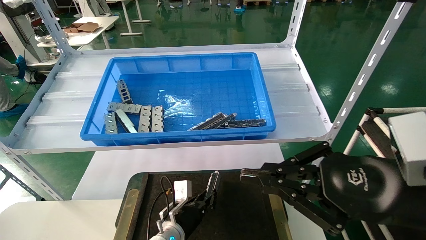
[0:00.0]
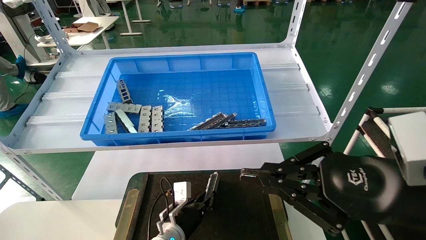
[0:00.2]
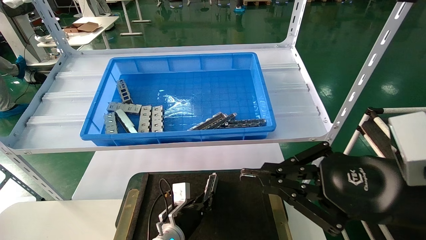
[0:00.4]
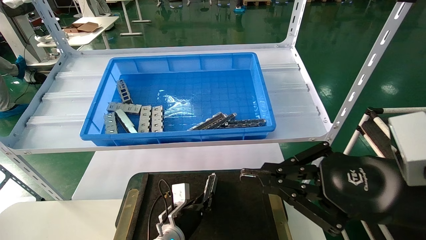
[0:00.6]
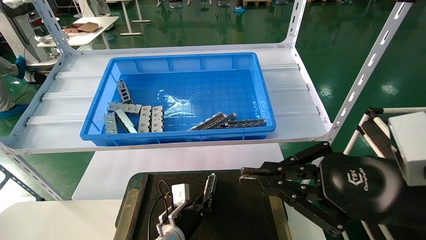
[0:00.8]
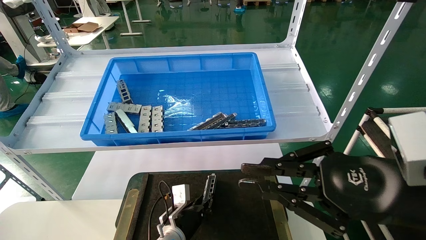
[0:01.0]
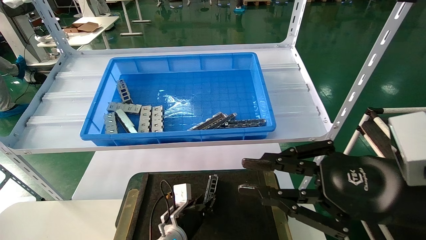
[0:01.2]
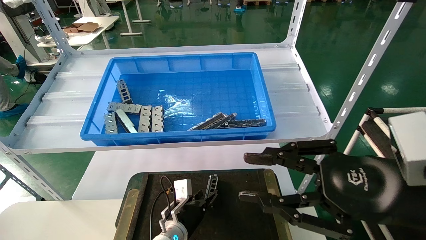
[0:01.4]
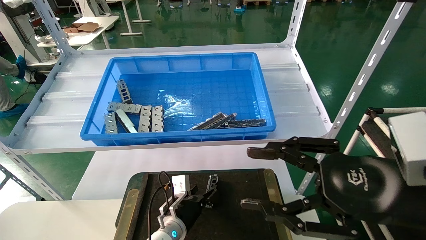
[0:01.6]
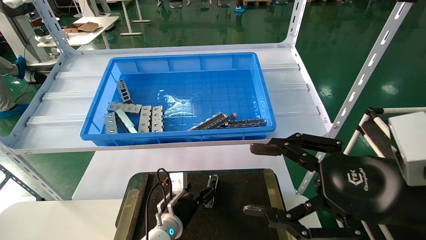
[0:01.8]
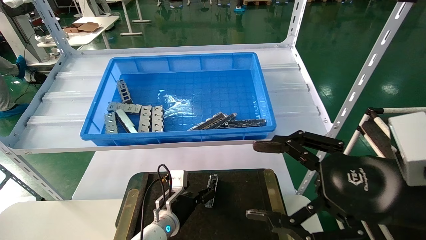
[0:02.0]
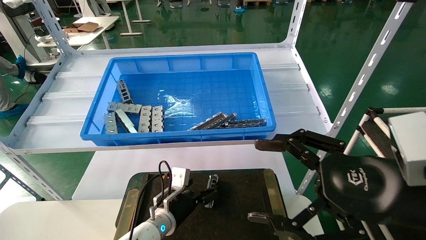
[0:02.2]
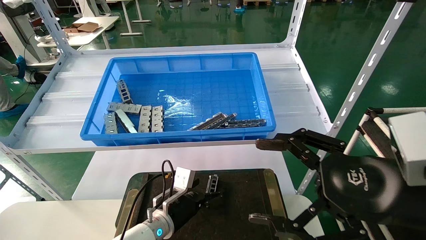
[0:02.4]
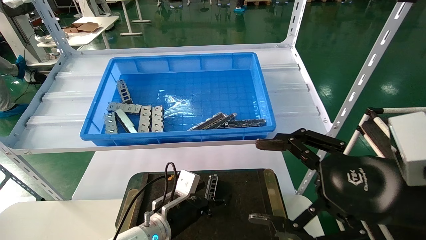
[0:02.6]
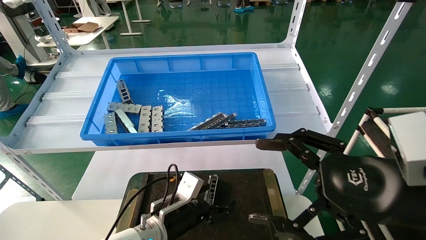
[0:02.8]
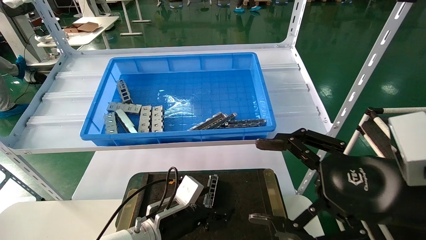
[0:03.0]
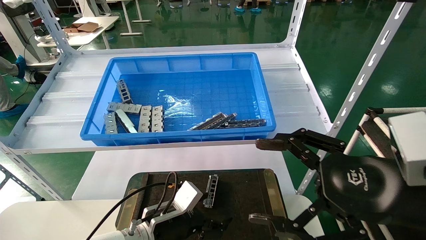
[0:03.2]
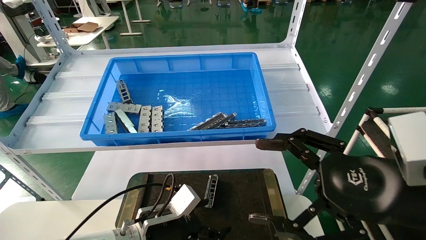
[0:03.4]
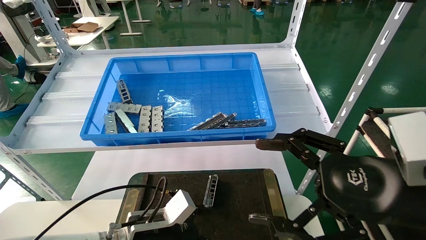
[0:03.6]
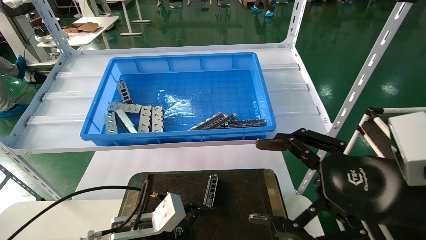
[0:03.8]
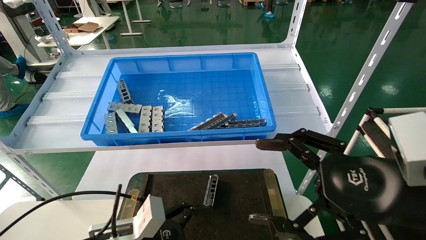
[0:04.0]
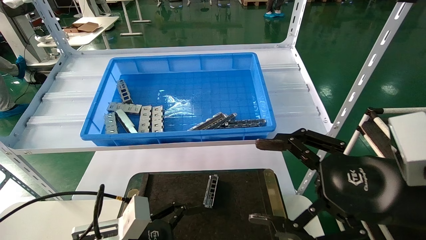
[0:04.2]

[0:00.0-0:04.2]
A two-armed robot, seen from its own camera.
Task of the whole recording: Grasp the part with one hand and place it on the black container.
0:00.0 to 0:01.4: Both grippers stay put.
0:01.4 to 0:02.8: The right gripper opens up, while the left gripper moves upward and backward, about 10 cm, and opens.
0:02.8 to 0:04.2: The left gripper is displaced backward and to the left by roughly 15 cm.

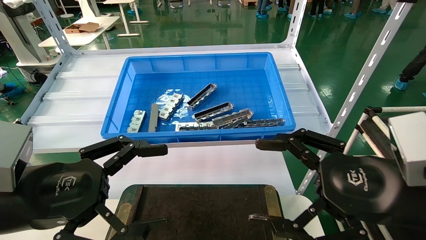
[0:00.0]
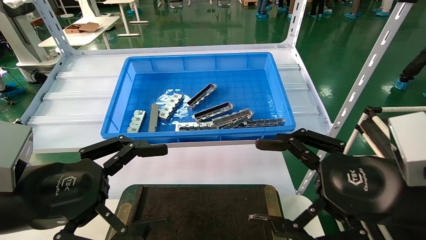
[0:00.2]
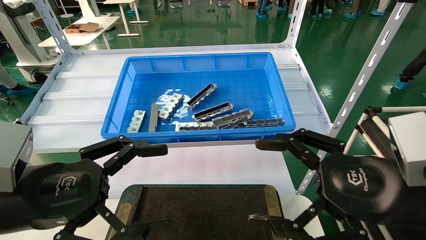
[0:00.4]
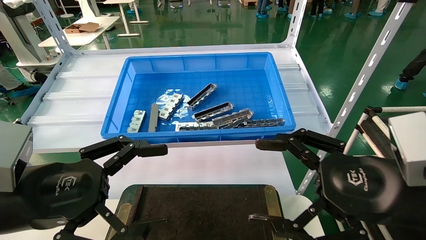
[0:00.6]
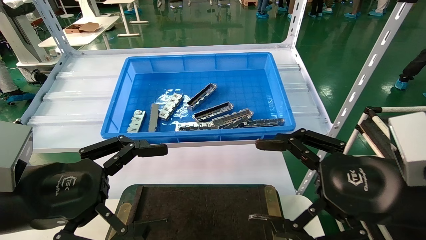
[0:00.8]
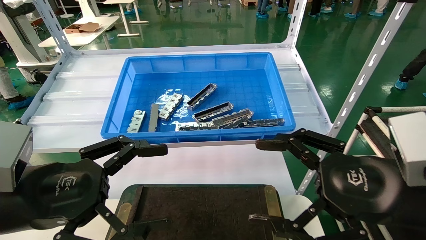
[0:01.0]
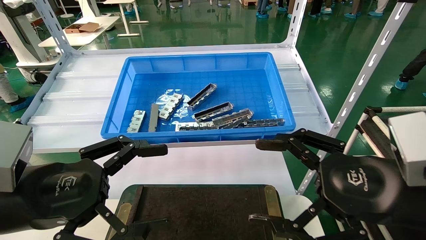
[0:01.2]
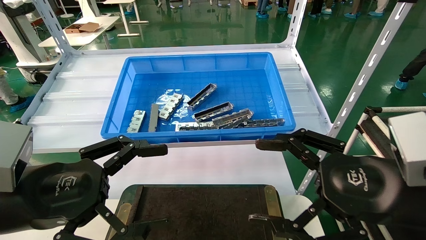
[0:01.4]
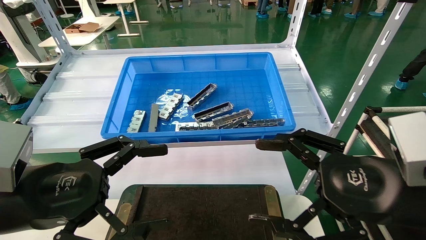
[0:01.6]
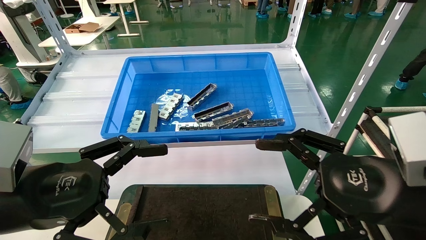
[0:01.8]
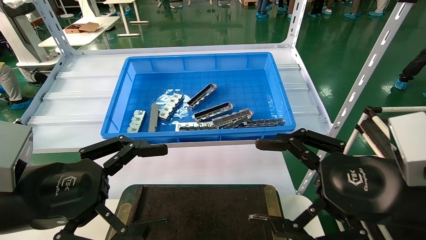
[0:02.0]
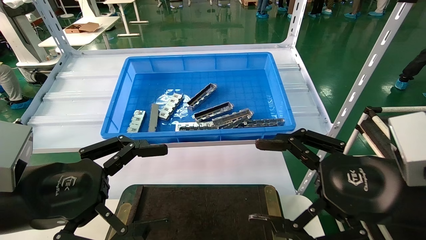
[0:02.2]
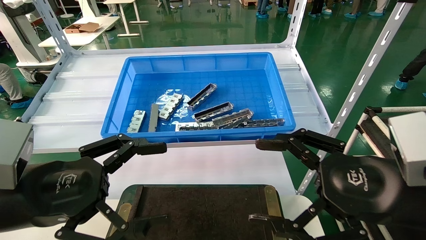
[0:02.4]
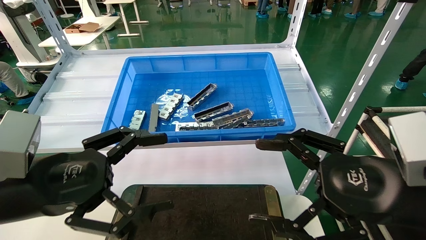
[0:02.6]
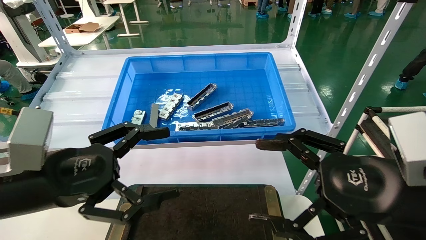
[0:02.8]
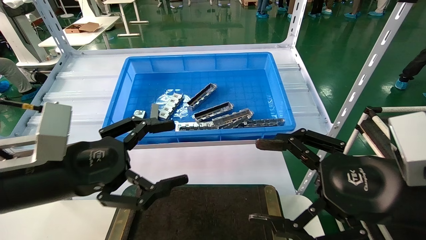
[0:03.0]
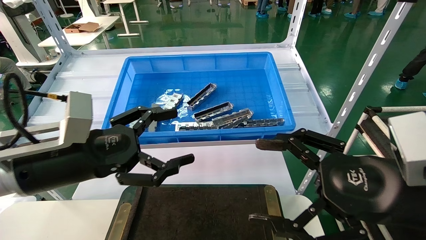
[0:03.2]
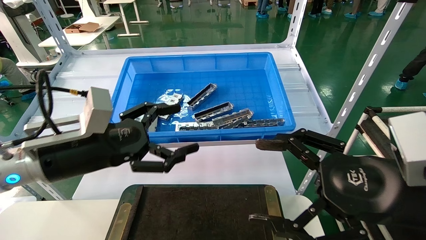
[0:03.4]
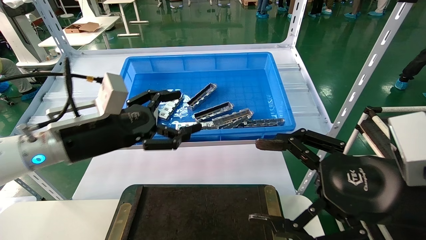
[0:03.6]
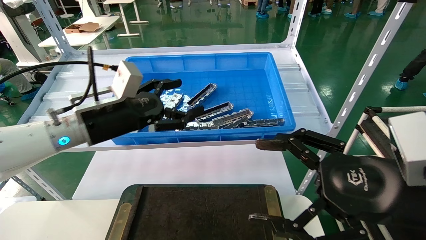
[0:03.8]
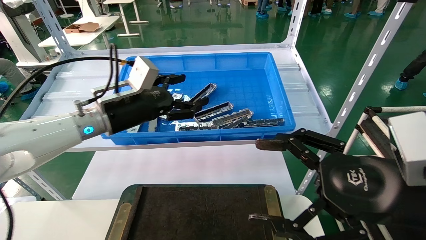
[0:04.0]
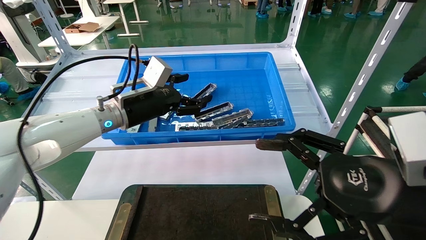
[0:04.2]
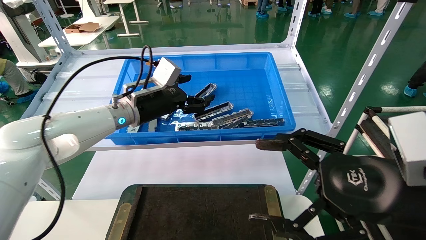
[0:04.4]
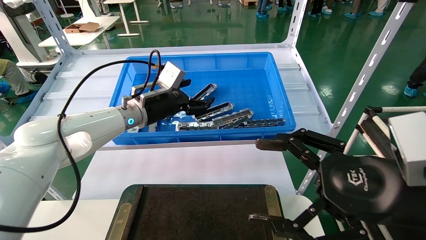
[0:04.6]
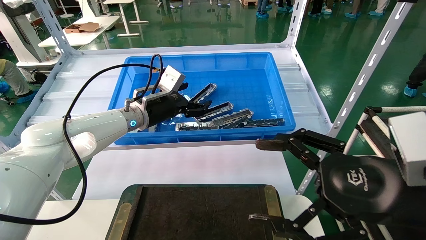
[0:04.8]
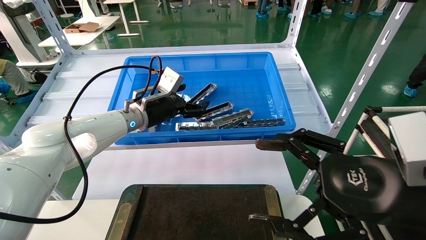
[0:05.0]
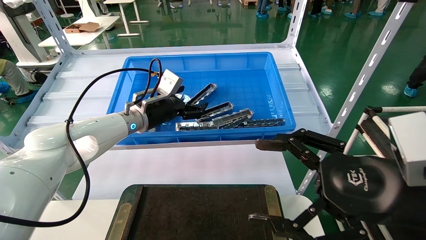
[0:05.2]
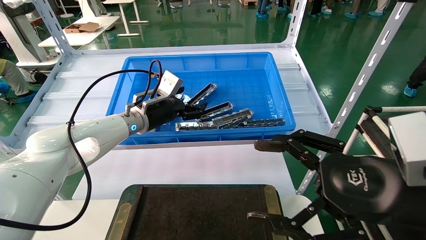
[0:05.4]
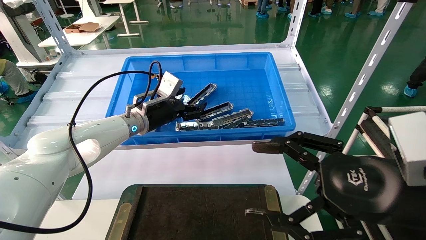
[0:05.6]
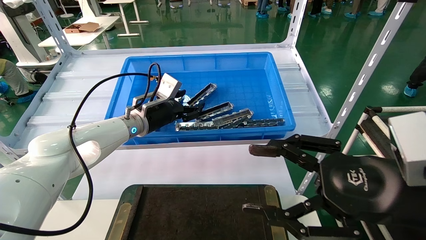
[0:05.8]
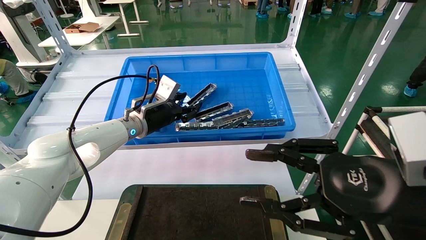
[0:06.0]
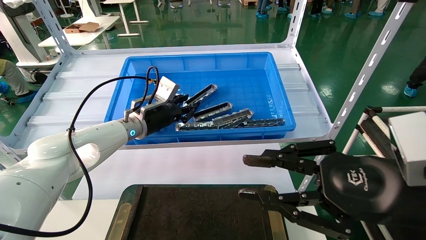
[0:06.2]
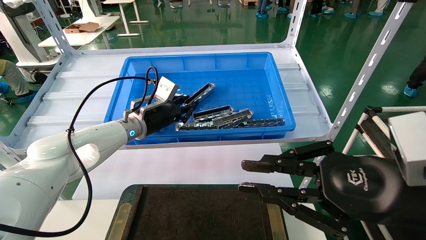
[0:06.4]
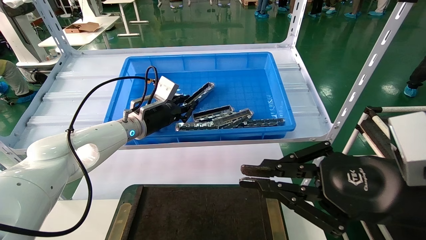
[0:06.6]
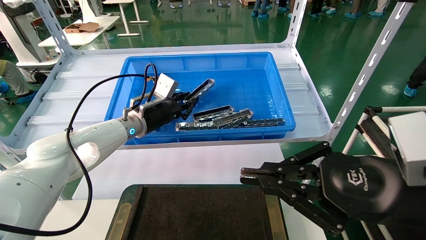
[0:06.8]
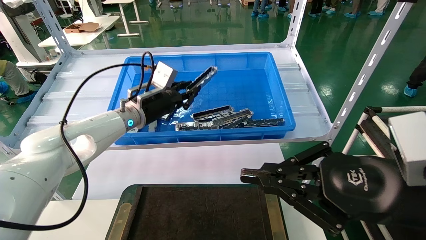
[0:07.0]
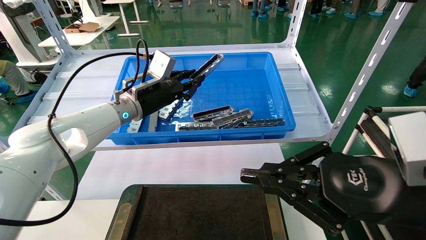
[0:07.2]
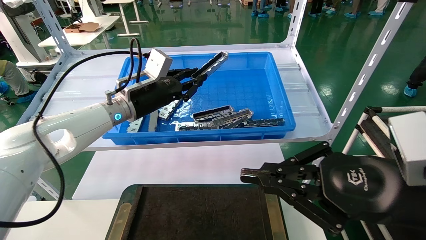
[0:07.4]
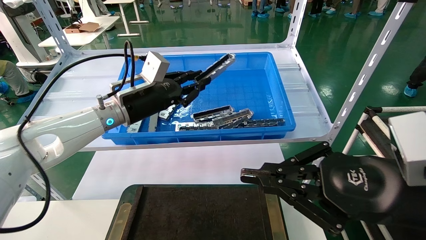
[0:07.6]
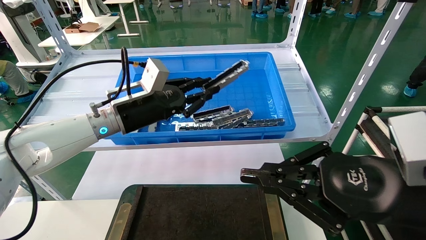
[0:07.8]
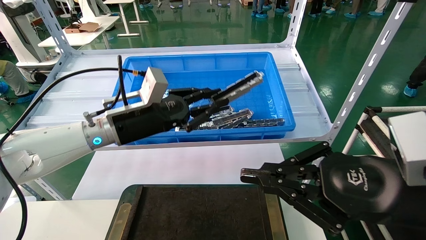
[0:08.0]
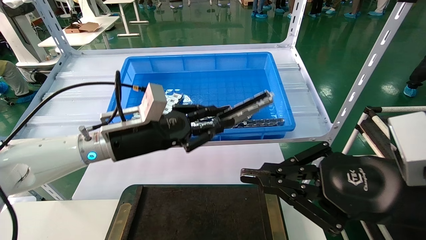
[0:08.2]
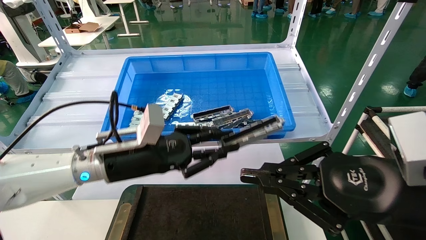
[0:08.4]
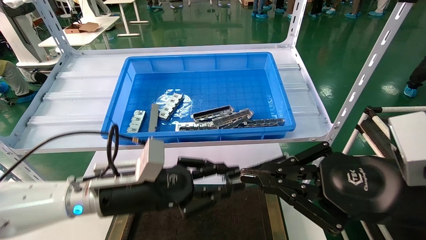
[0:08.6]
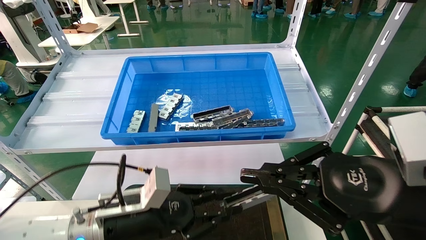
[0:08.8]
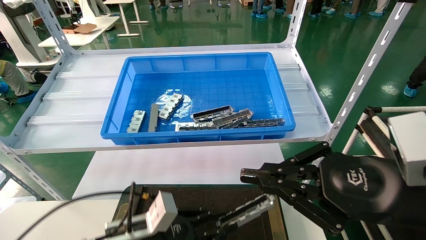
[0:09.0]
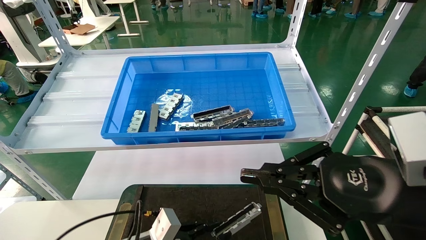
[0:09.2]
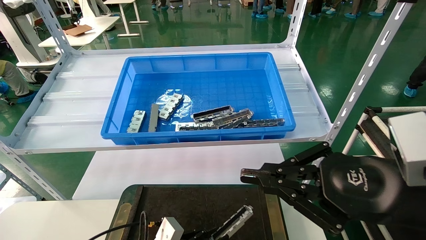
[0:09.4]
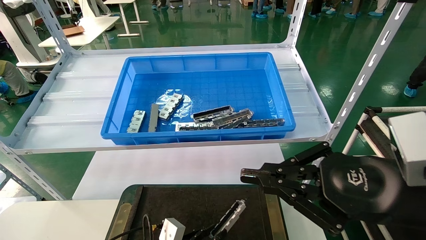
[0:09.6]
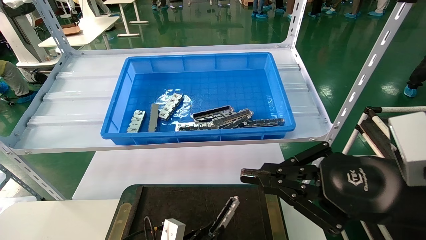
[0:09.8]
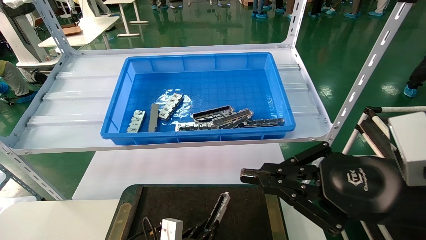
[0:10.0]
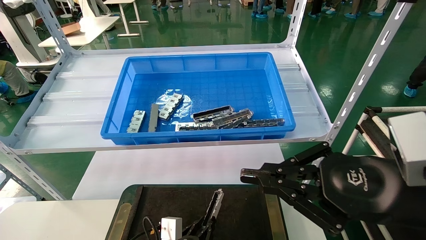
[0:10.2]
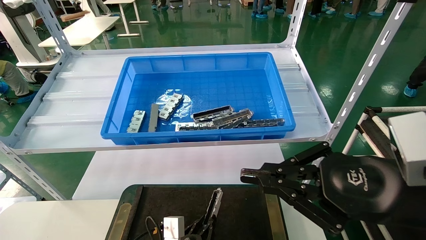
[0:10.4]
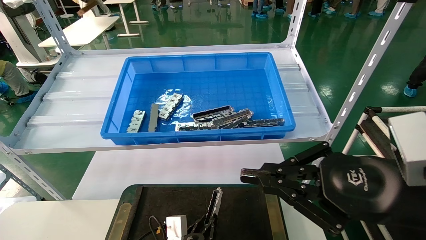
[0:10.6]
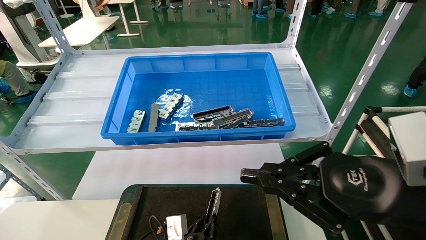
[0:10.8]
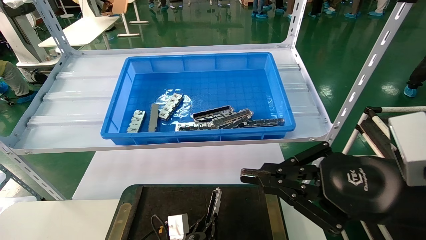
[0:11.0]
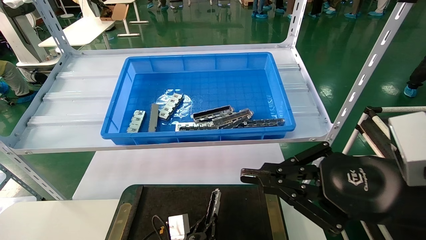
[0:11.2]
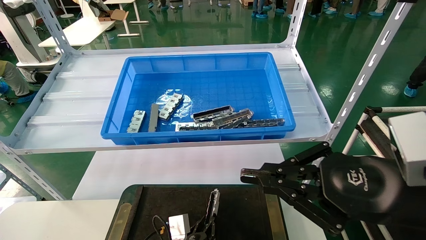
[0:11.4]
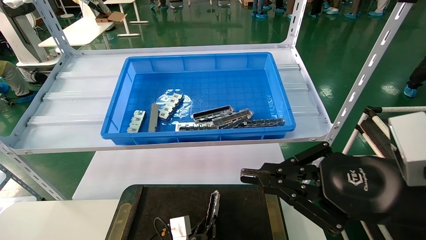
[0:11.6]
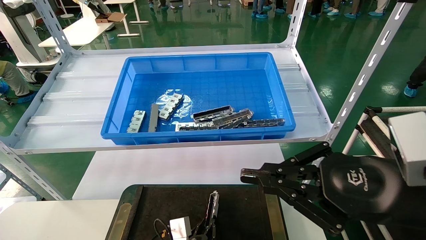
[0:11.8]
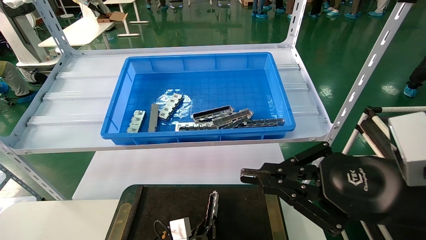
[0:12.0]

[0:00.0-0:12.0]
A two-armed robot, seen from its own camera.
Task of the whole recording: Grasp the part with one hand and place it on the black container.
Step, 0:02.6 to 0:06.2: Pick up the front USB bracket from the feeding area.
0:00.0 to 0:01.6: Both grippers stay about where they are.
0:01.6 to 0:03.0: There are only small adjustments of the grippers.
0:03.0 to 0:04.4: The left gripper shifts roughly 25 cm forward.
0:04.4 to 0:06.0: The left gripper moves roughly 5 cm, and closes its fingers. Meanwhile the right gripper closes its fingers.
0:06.0 to 0:07.6: The left gripper heads backward, covering approximately 5 cm, and closes. The right gripper closes.
0:07.6 to 0:09.0: The left gripper heads downward and backward, covering some 25 cm.
0:09.0 to 0:10.4: The left gripper travels downward and to the right by approximately 15 cm.
0:10.4 to 0:12.0: There are only small adjustments of the grippers.
